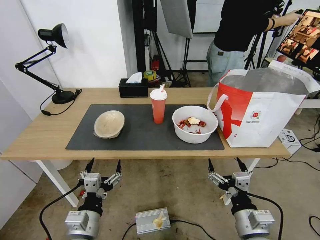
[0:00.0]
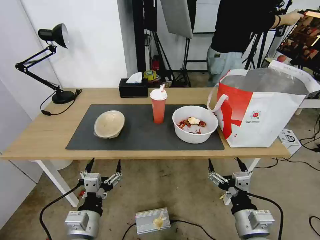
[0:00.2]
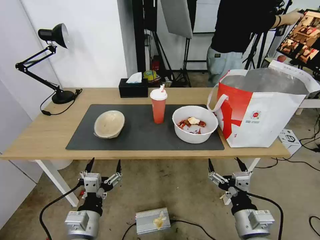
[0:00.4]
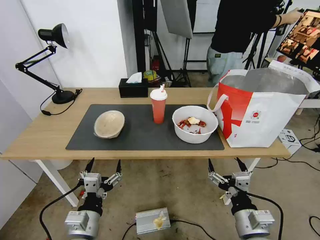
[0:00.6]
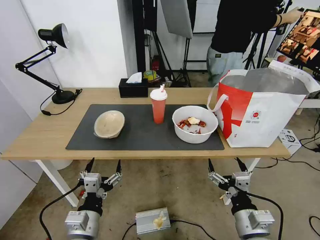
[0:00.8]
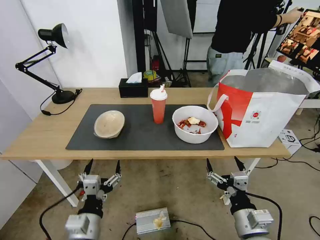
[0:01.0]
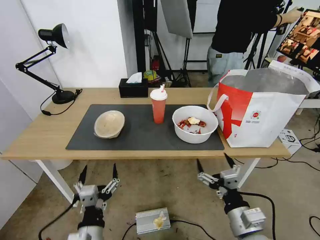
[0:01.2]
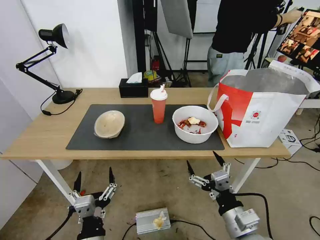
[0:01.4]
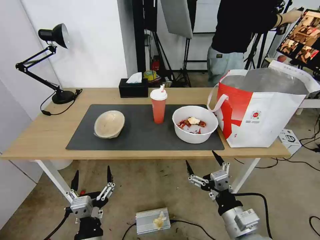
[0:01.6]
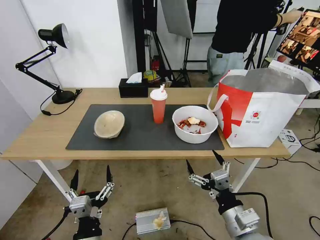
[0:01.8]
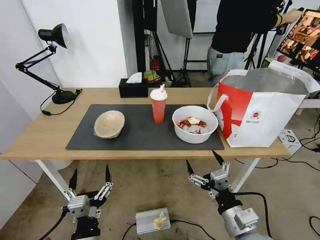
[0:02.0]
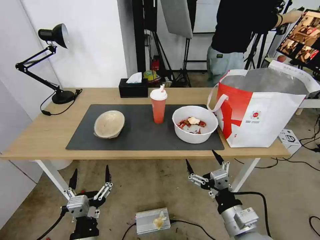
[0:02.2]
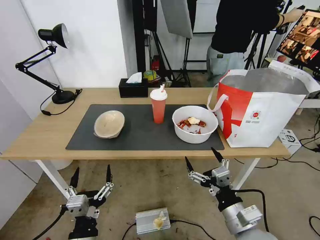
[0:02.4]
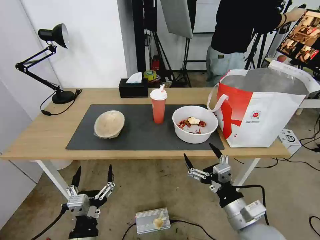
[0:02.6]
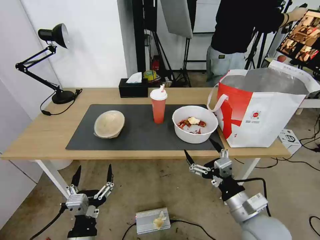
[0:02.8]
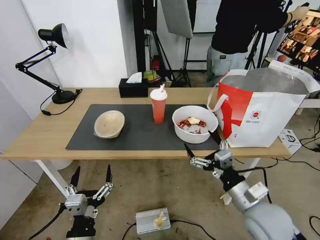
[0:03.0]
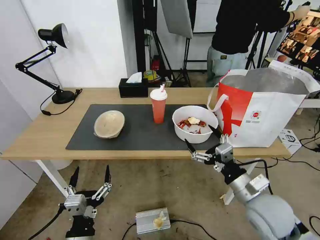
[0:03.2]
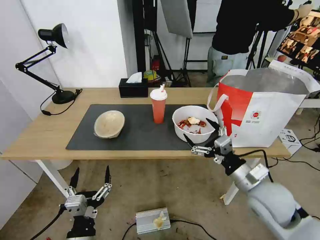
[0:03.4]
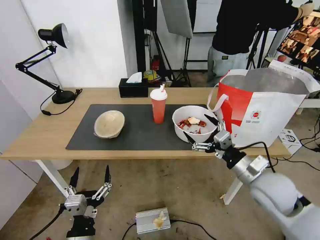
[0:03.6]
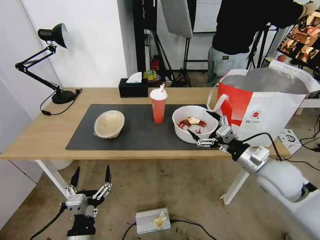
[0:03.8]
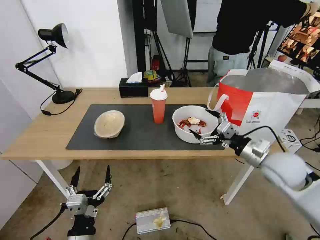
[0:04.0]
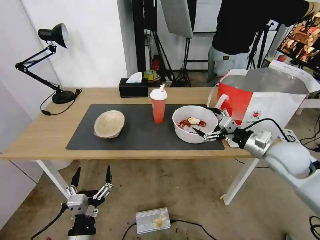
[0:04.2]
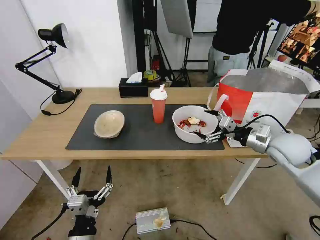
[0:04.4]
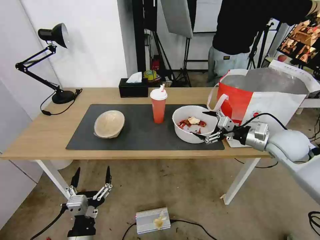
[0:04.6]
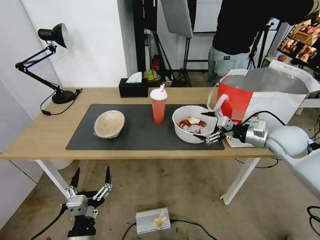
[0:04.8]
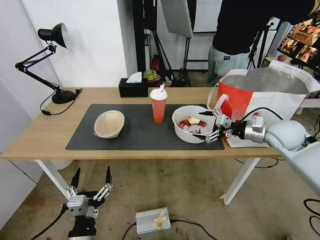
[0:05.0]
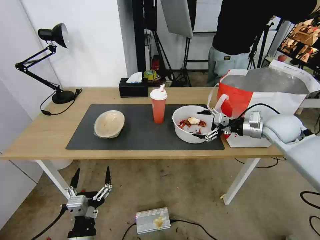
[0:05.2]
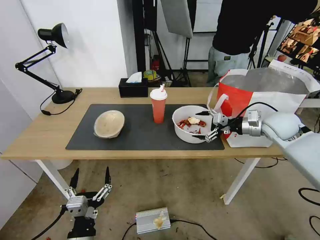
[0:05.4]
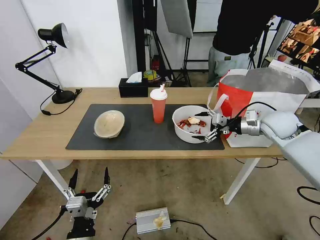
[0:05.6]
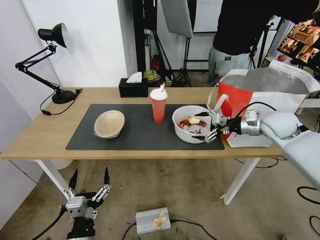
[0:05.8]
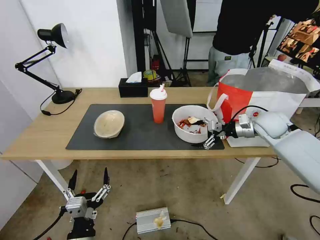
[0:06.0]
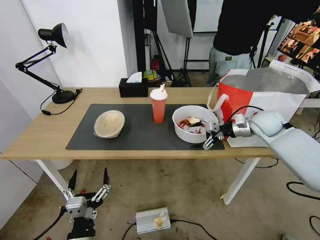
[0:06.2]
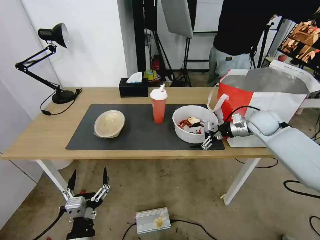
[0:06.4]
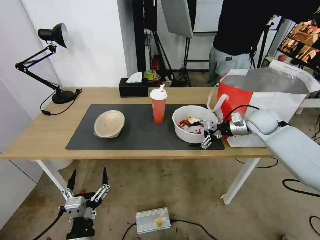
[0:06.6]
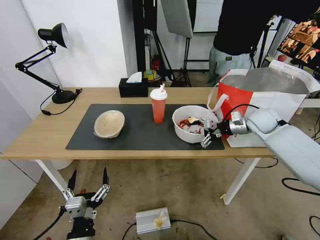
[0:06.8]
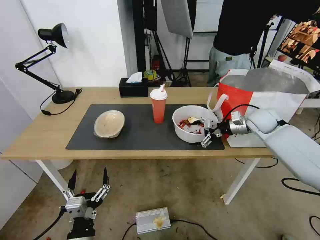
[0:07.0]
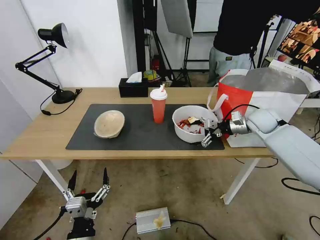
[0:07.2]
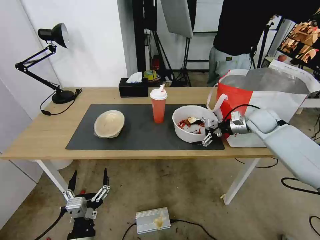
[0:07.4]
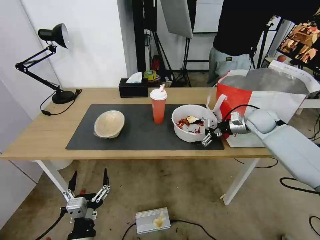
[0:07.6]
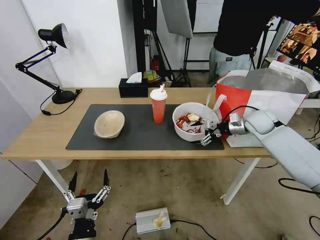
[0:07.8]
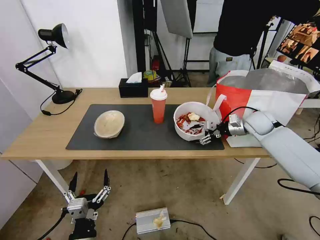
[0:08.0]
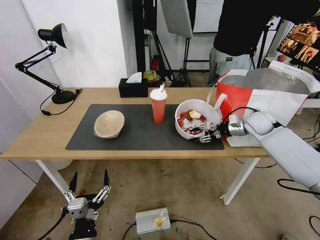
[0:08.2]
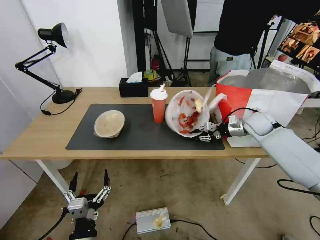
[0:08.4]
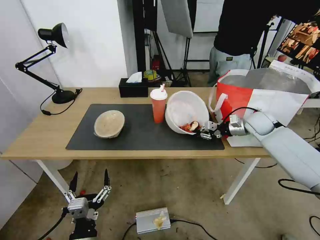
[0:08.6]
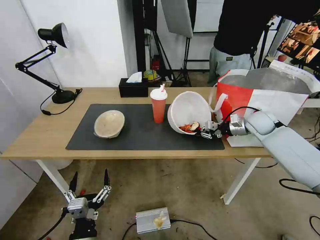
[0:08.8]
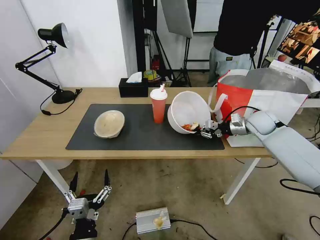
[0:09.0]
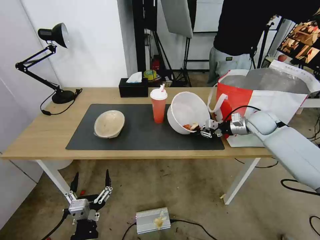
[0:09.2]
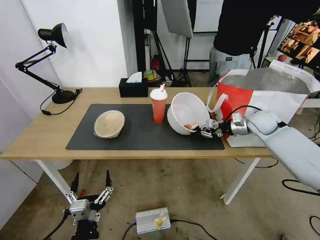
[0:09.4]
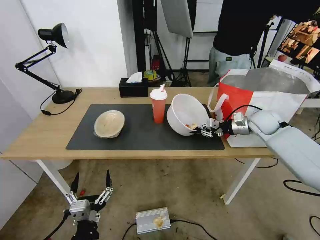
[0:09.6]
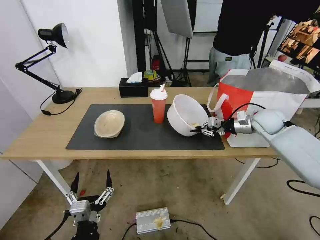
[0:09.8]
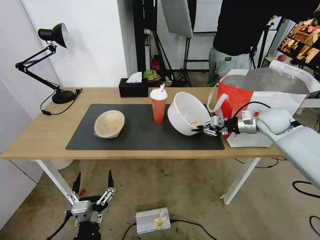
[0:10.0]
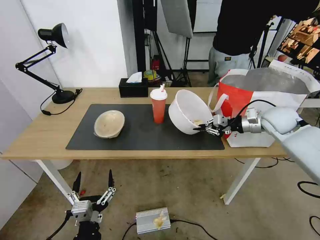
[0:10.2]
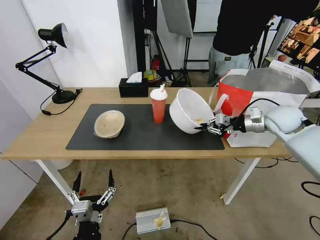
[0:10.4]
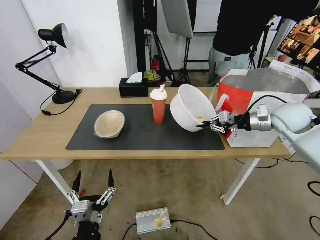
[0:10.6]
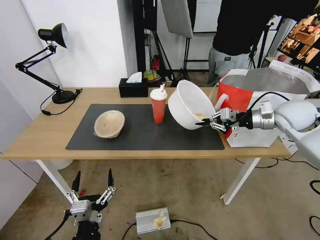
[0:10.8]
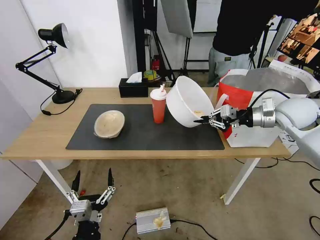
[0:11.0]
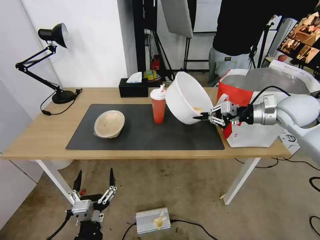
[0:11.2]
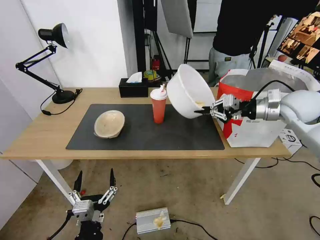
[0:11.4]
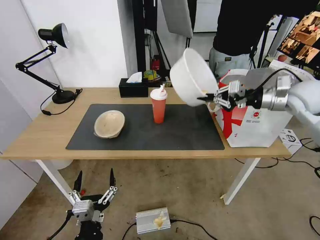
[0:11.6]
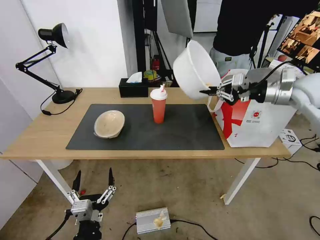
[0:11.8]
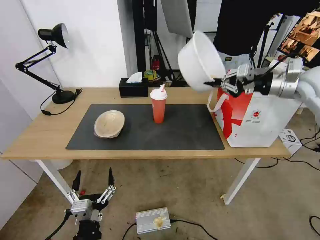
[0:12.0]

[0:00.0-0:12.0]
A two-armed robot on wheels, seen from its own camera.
Task of the whole recording: Pick up the trash from the table and place it into the takeout bag.
0:01.6 to 0:03.0: The right gripper is displaced forward by roughly 5 cm.
0:03.0 to 0:04.4: The right gripper shifts some 20 cm forward, to the right and upward.
0:04.4 to 0:06.0: The right gripper heads forward, covering about 10 cm.
0:06.0 to 0:07.6: The grippers stay close to where they were, moving slightly.
0:07.6 to 0:09.0: The right gripper closes its fingers.
0:09.0 to 0:10.4: The right gripper is displaced upward and backward by some 10 cm.
0:10.4 to 0:12.0: The right gripper goes roughly 15 cm upward.

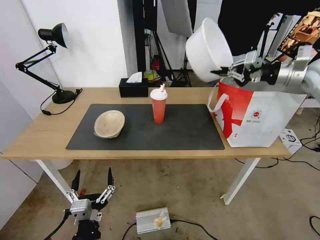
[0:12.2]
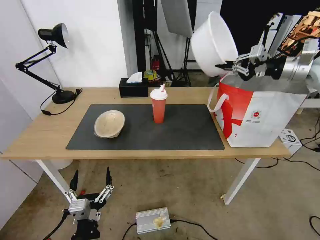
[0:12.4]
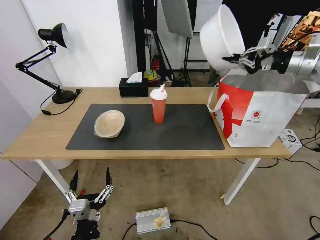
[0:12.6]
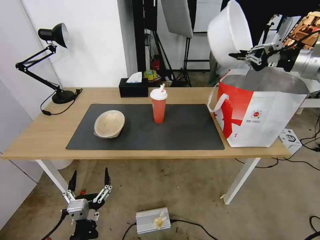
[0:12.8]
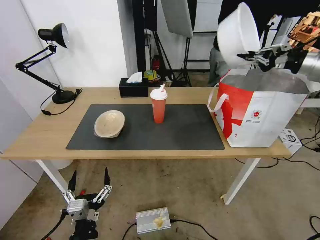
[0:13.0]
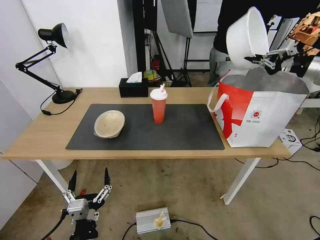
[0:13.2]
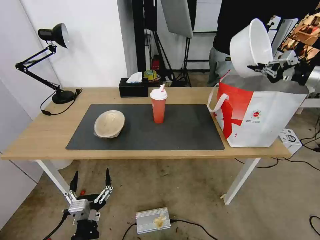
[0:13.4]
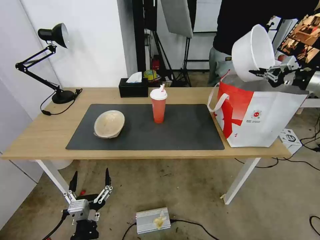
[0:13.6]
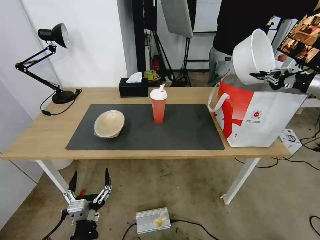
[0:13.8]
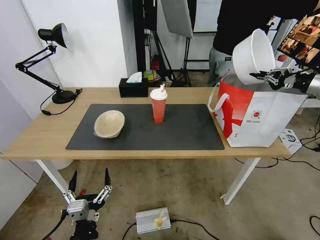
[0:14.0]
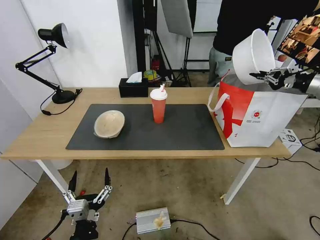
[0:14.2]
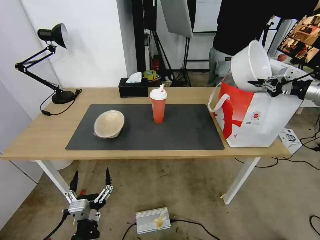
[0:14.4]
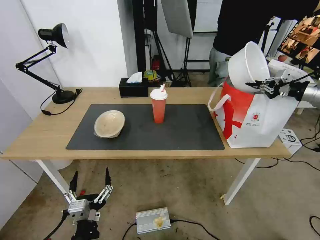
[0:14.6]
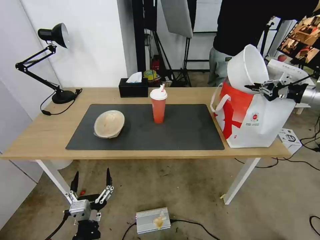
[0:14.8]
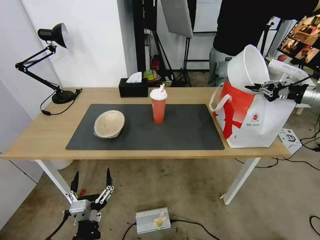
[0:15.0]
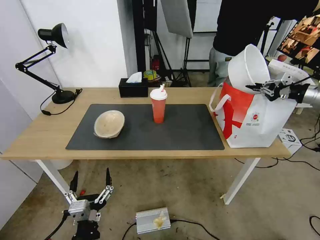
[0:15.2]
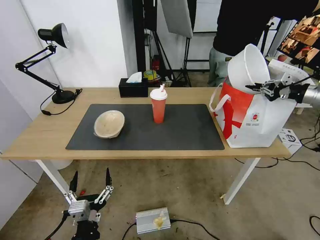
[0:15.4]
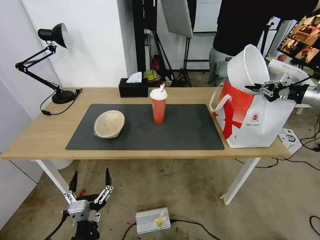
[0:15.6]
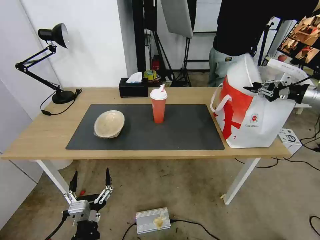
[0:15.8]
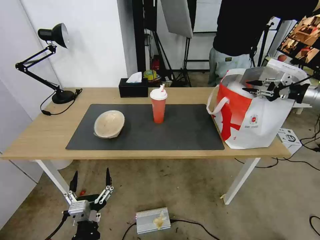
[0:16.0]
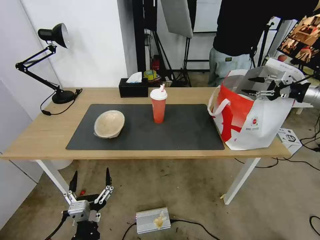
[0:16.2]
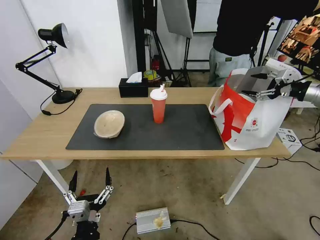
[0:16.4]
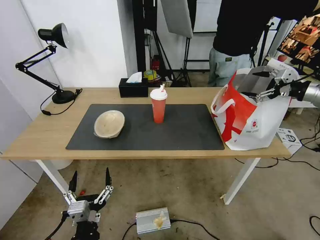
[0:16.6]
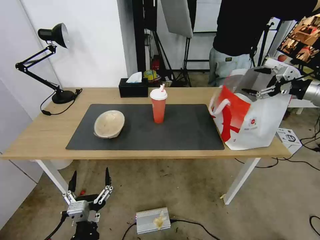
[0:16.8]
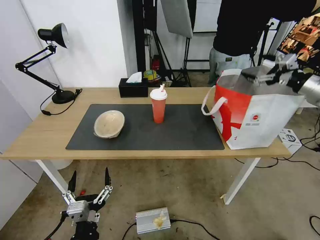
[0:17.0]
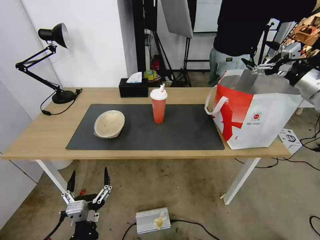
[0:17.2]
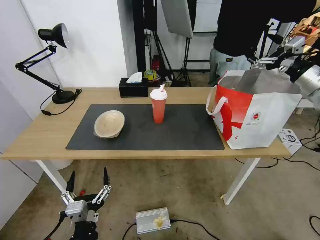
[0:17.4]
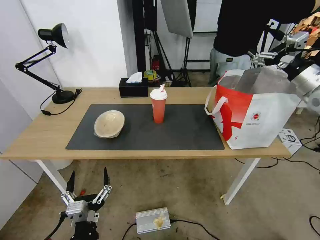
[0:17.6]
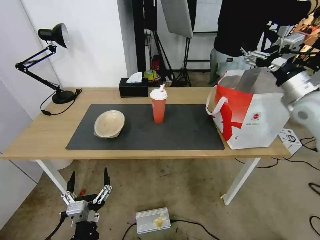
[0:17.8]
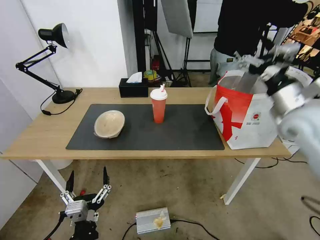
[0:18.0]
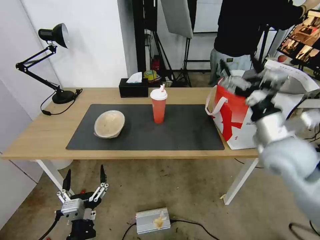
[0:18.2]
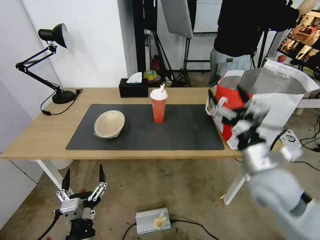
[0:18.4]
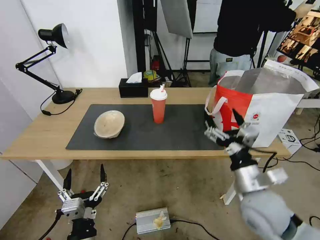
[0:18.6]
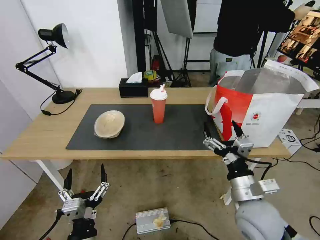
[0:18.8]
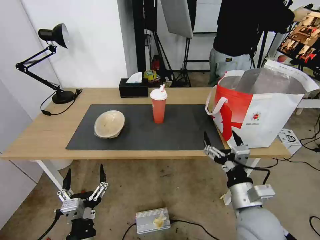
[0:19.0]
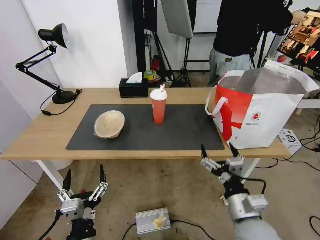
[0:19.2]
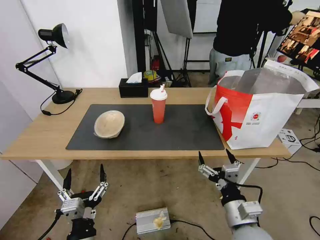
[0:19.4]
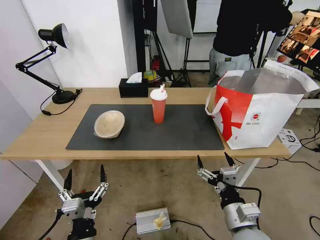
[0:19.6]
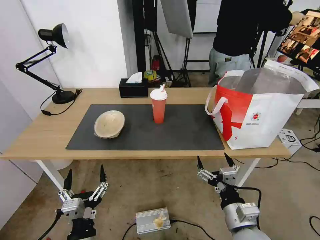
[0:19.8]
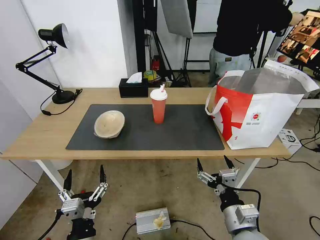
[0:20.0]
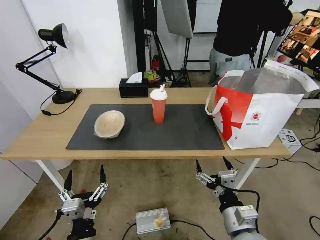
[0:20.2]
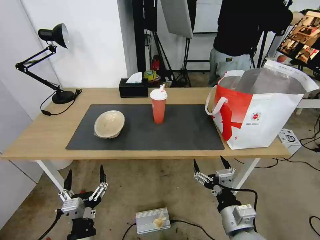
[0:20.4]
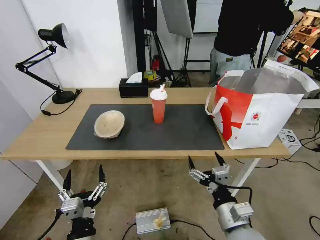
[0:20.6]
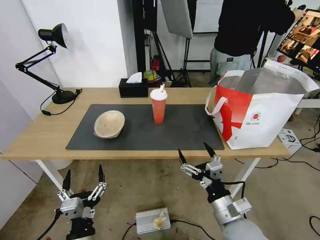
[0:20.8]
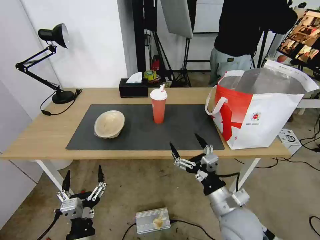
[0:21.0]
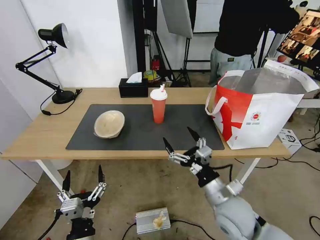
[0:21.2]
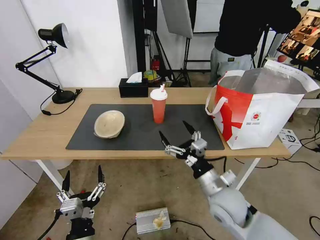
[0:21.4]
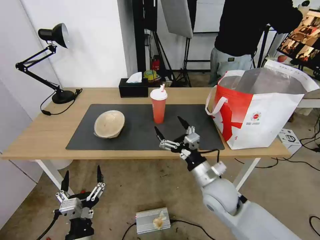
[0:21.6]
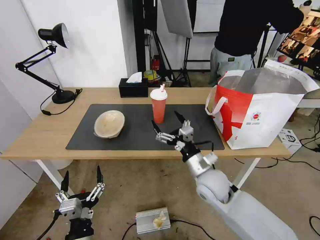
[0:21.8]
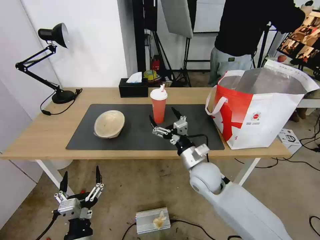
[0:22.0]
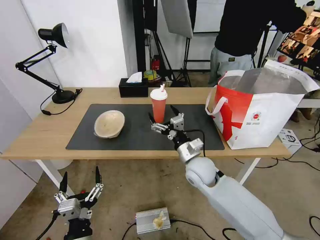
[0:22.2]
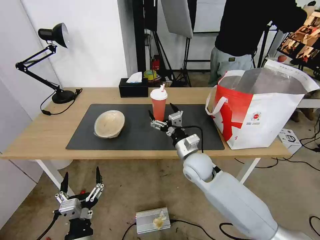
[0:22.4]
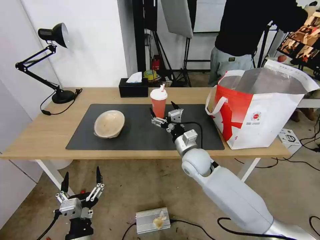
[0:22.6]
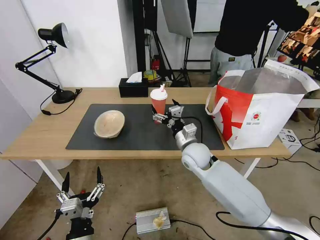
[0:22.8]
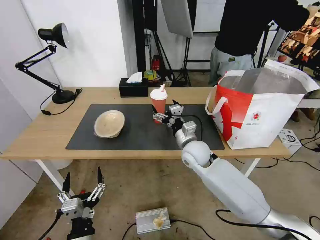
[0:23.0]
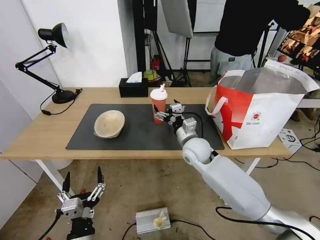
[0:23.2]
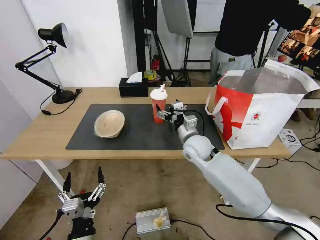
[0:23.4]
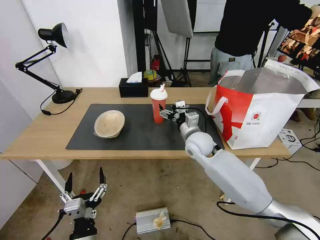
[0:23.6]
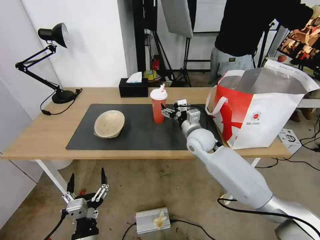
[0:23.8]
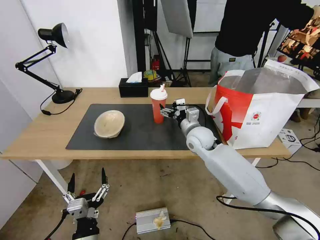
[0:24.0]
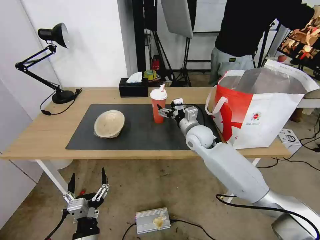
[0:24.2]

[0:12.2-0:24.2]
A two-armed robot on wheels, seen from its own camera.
Task of the whole recording: Pick up the trash from the table and place it into the takeout bag.
0:12.2 to 0:13.8: The right gripper heads to the right, covering about 15 cm.
0:13.8 to 0:15.2: The grippers make only small movements.
0:15.2 to 0:16.6: The right gripper opens its fingers.
0:16.6 to 0:18.2: The right gripper heads to the left and backward, covering approximately 30 cm.
0:18.2 to 0:19.8: The right gripper heads downward, backward and to the left, covering some 25 cm.
0:19.8 to 0:21.2: The right gripper moves forward, roughly 10 cm.
0:21.2 to 0:22.6: The right gripper travels forward and to the left by roughly 20 cm.
0:22.6 to 0:24.2: The right gripper travels forward by approximately 10 cm.
